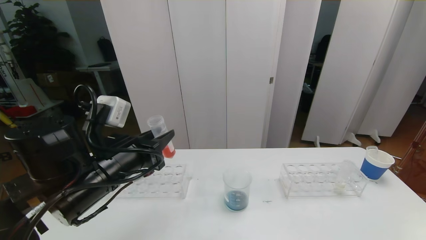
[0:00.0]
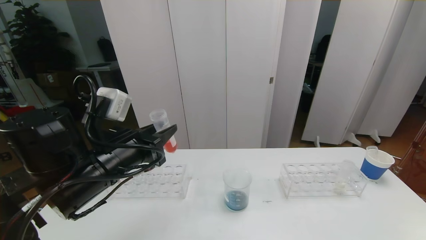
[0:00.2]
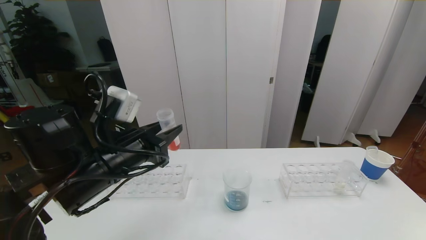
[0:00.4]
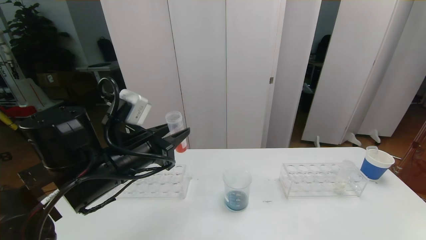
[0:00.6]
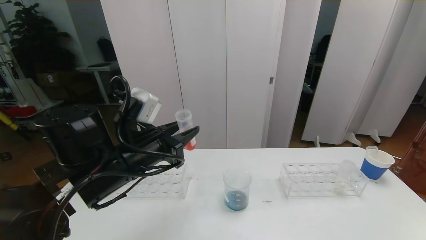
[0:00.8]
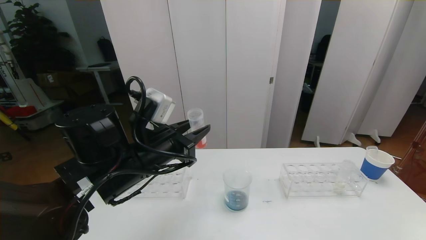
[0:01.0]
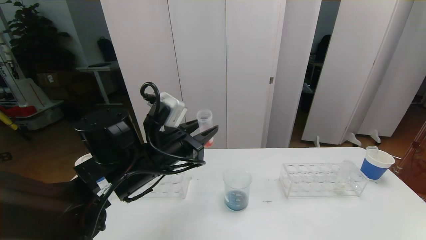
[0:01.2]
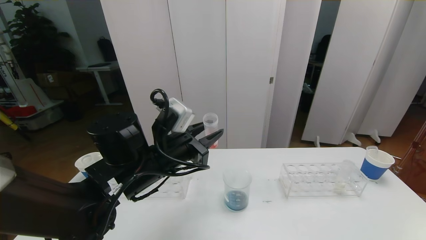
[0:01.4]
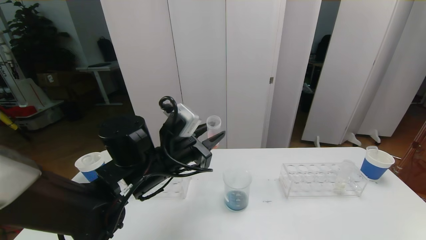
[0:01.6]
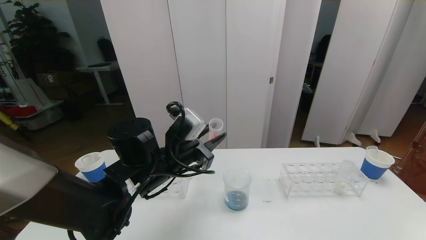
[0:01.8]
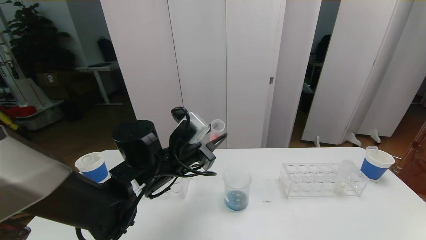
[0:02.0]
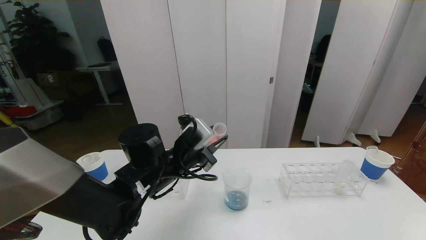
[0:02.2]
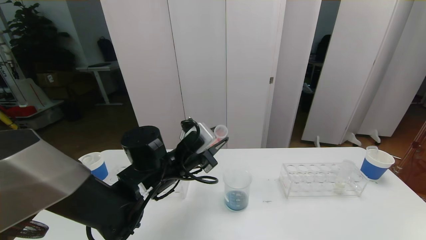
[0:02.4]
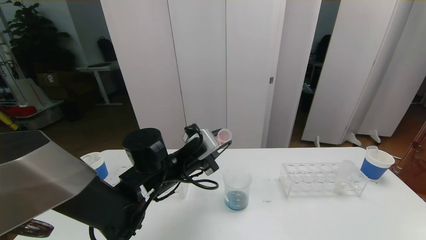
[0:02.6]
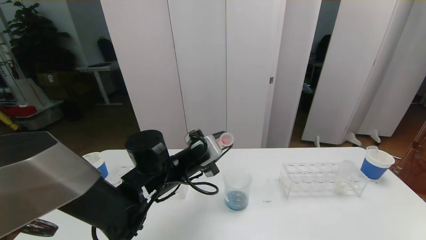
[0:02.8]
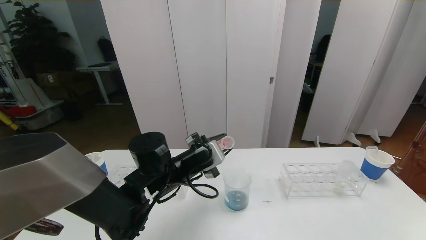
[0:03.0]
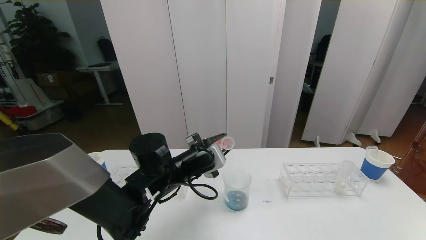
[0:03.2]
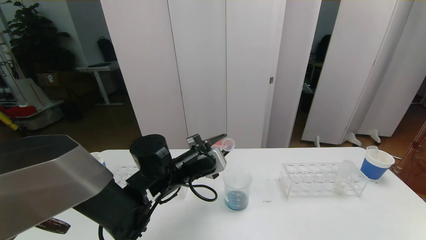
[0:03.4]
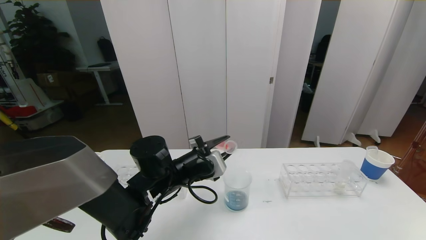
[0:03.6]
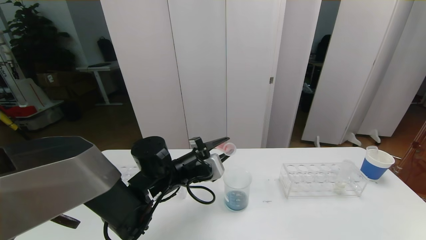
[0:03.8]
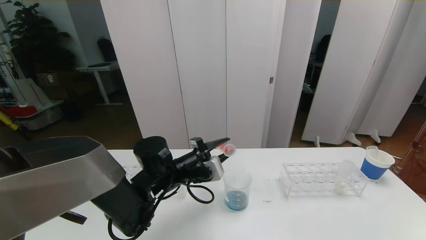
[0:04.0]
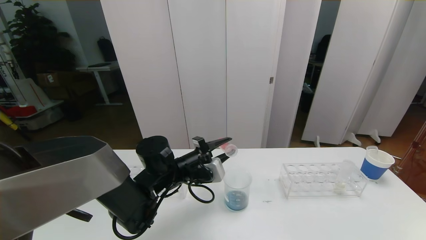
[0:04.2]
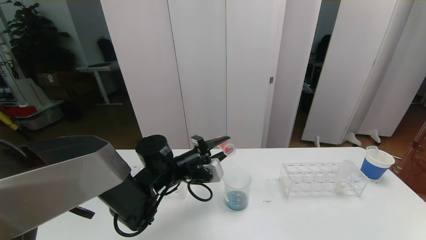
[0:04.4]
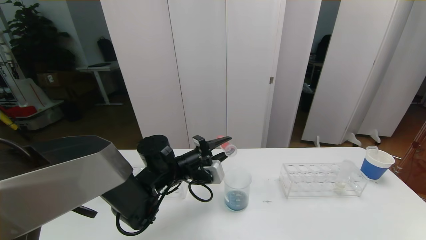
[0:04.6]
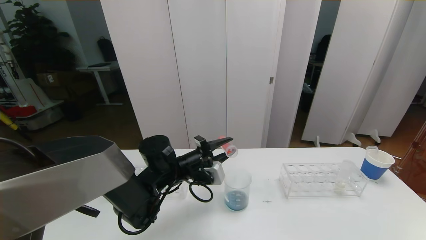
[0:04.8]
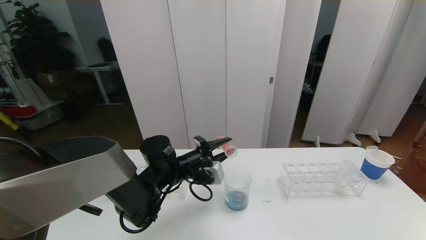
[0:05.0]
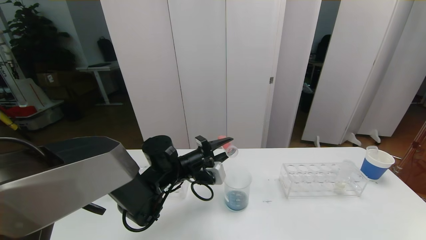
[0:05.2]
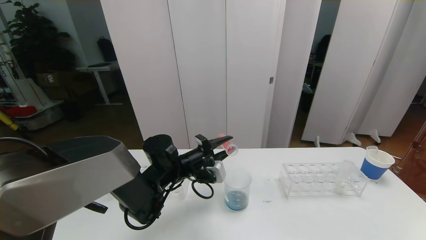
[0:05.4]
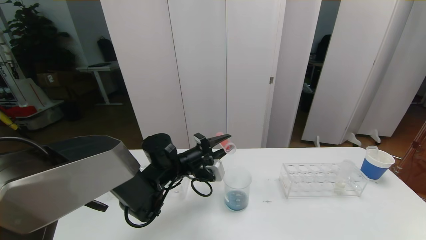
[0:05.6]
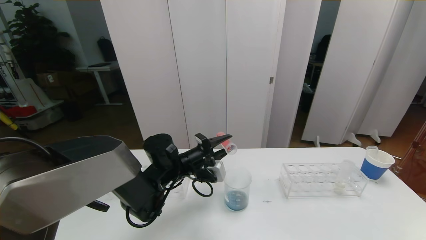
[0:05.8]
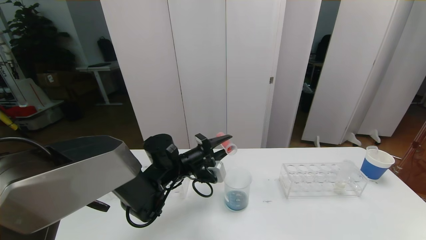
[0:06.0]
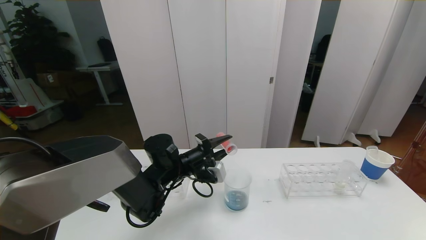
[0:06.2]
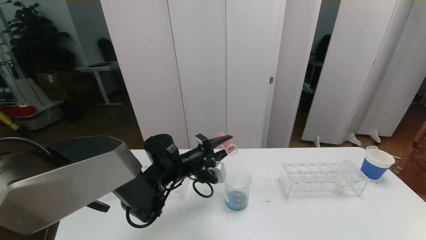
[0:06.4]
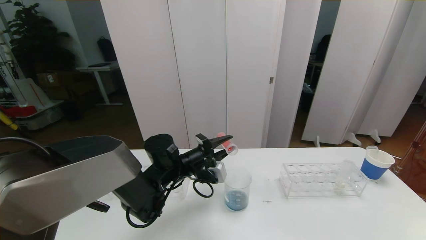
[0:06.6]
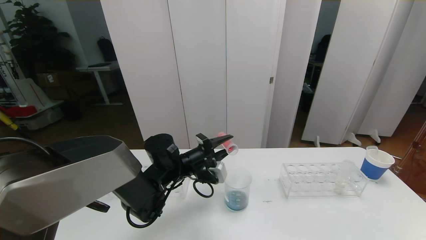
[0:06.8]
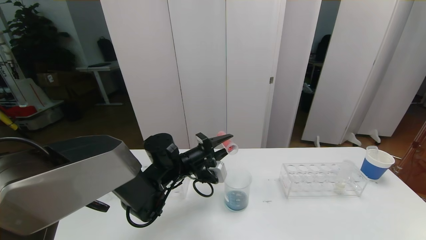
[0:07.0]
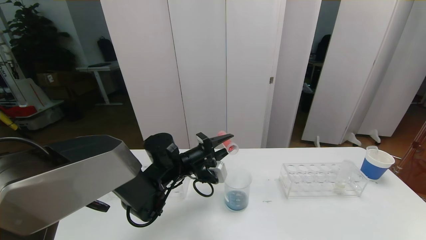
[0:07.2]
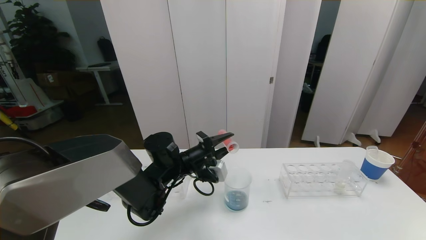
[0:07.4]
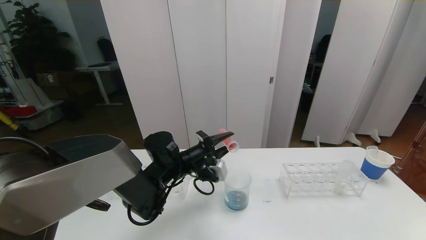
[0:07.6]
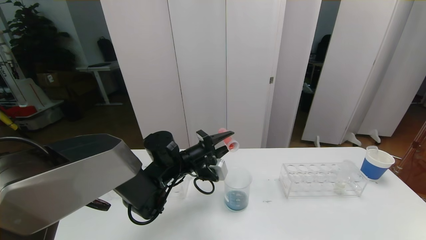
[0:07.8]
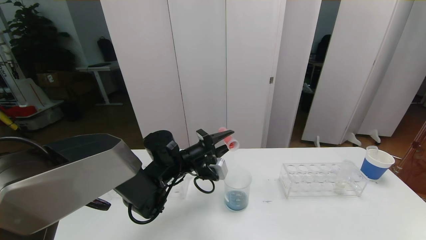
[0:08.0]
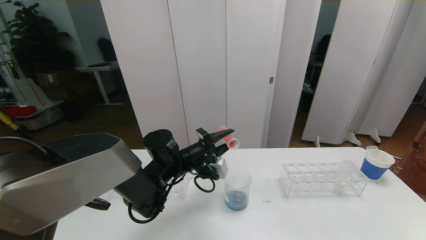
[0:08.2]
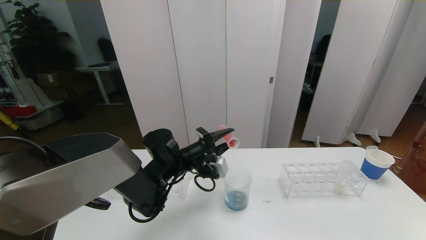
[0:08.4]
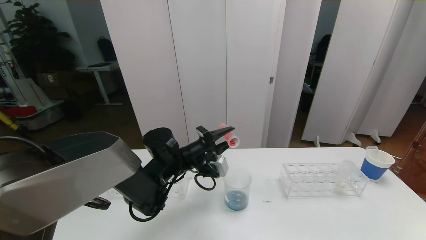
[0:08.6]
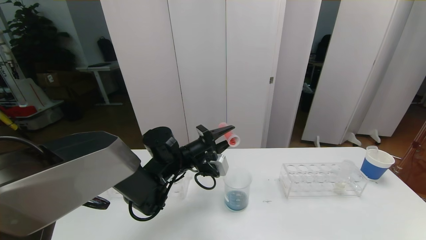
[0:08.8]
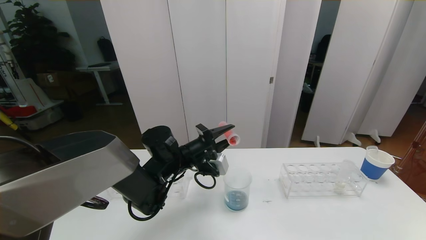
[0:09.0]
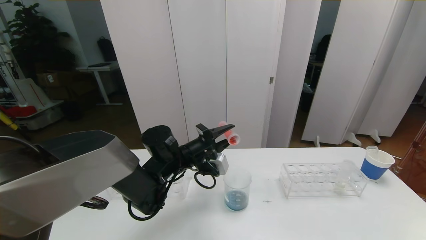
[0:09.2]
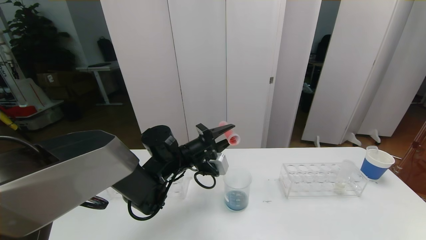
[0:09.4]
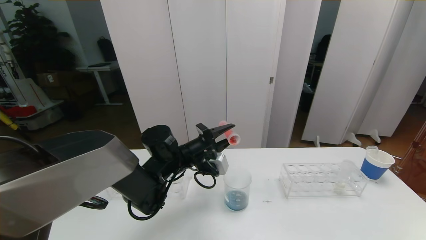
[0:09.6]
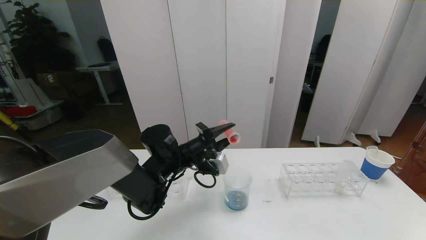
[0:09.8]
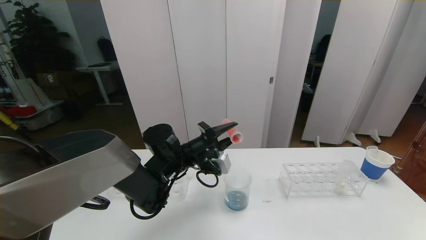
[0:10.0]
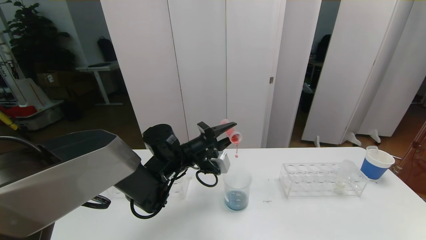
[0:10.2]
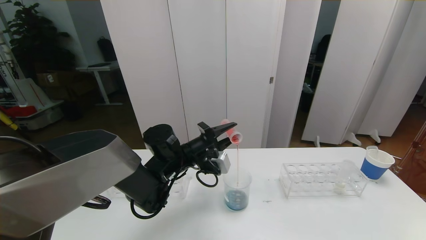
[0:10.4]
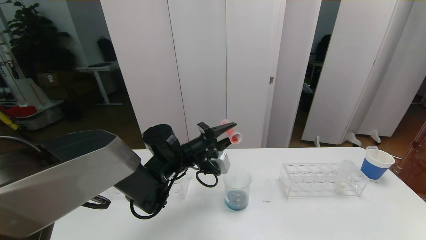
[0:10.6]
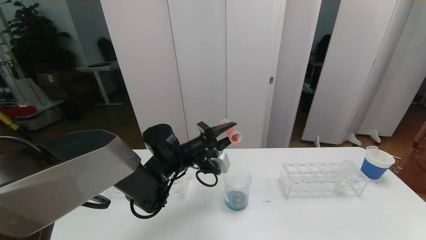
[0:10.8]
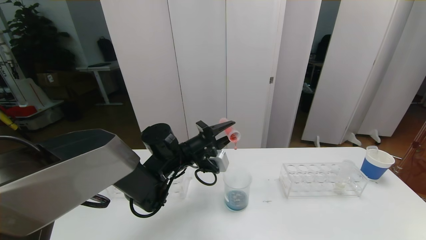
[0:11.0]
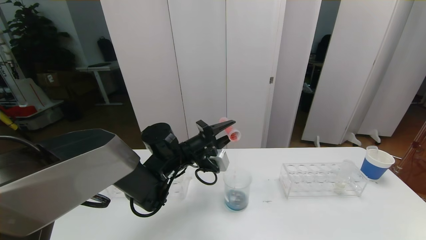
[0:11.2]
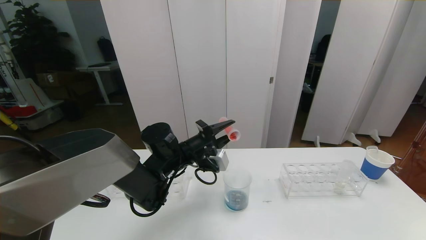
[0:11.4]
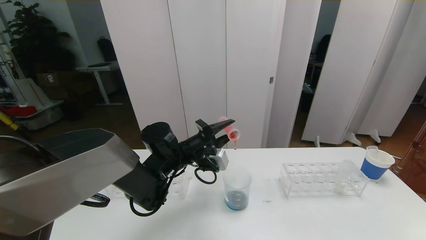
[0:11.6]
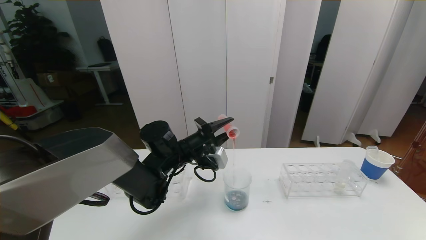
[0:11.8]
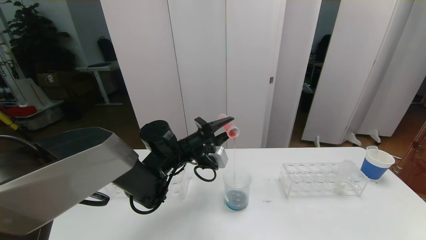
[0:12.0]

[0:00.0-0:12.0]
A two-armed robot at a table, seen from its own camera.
Task of the whole recording: pick up the test tube with red pigment the test tube with blue pigment and the test tube with white pigment by grippers and pour them into the beaker.
0:00.0 to 0:01.6: The left gripper heads to the right and forward, covering some 10 cm.
0:01.6 to 0:03.0: The left gripper shifts by roughly 5 cm.
0:04.4 to 0:06.0: The grippers stay close to where they were, moving slightly.
0:06.0 to 0:07.6: Both grippers stay about where they are.
0:07.6 to 0:09.0: The grippers make only small movements.
0:09.0 to 0:12.0: Both grippers stay put.

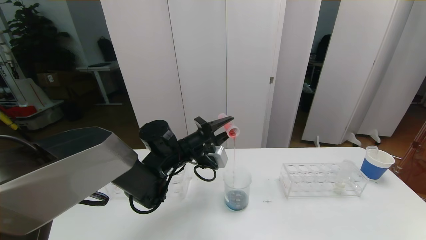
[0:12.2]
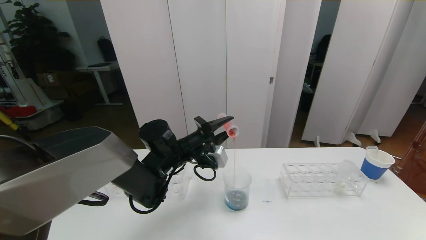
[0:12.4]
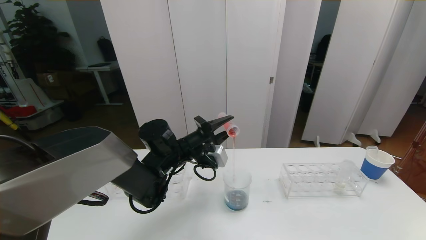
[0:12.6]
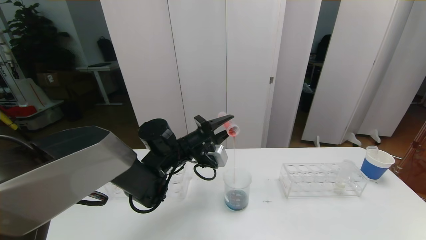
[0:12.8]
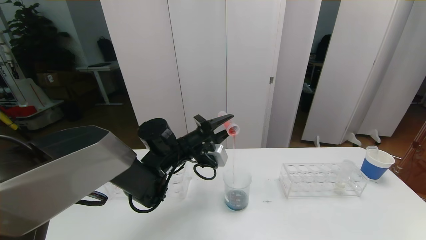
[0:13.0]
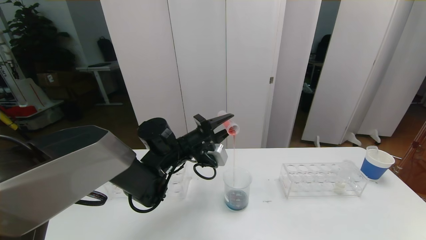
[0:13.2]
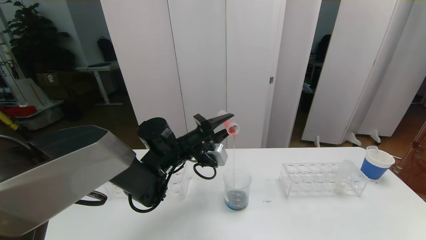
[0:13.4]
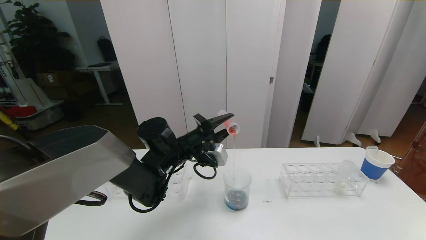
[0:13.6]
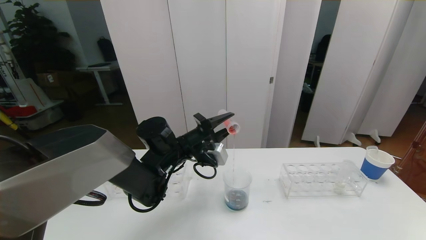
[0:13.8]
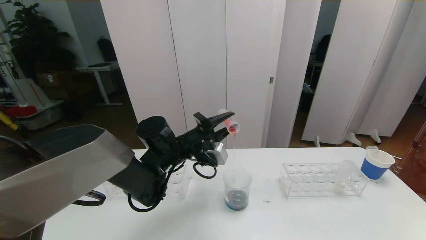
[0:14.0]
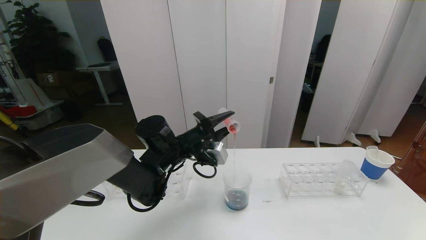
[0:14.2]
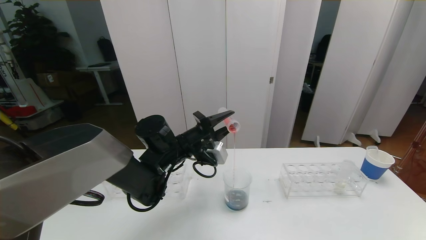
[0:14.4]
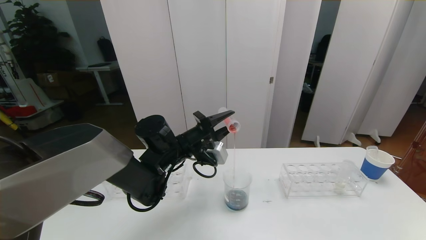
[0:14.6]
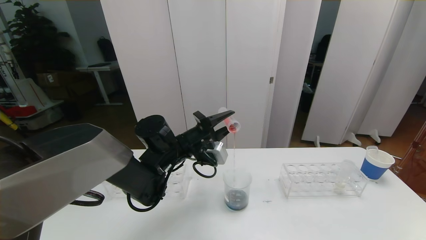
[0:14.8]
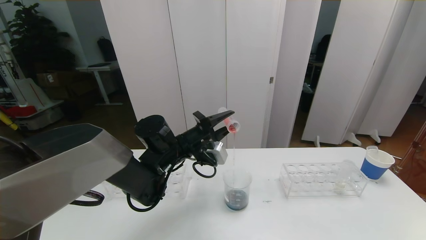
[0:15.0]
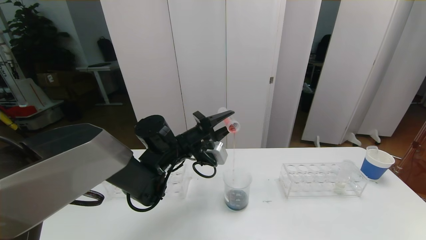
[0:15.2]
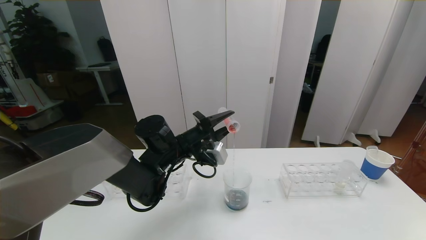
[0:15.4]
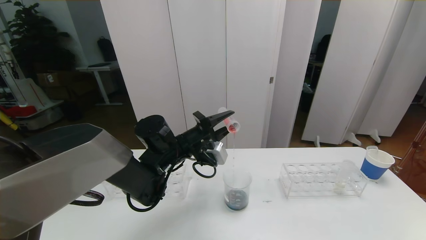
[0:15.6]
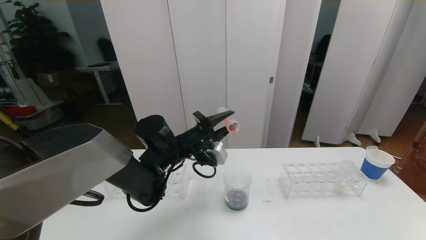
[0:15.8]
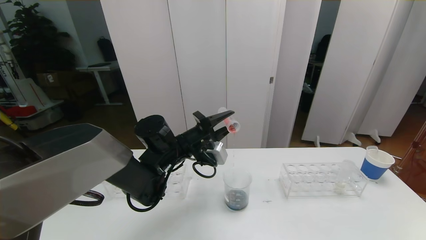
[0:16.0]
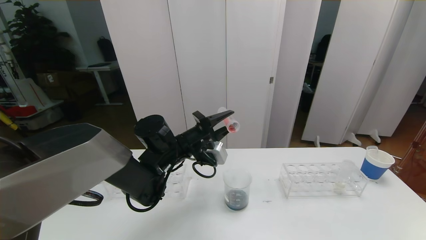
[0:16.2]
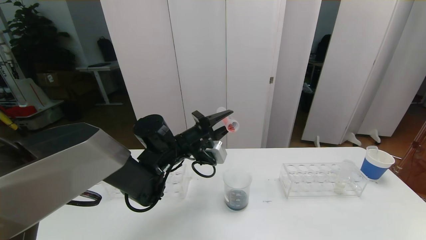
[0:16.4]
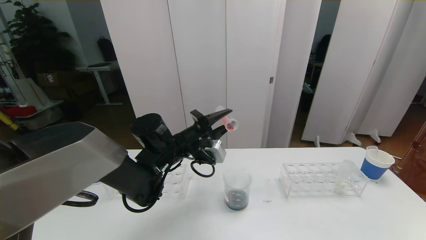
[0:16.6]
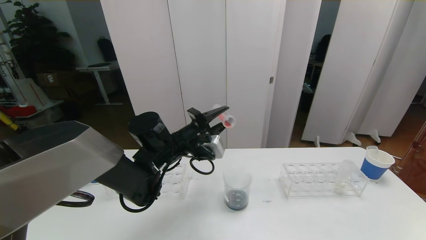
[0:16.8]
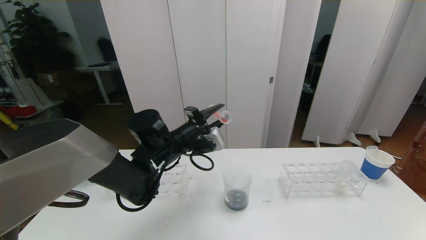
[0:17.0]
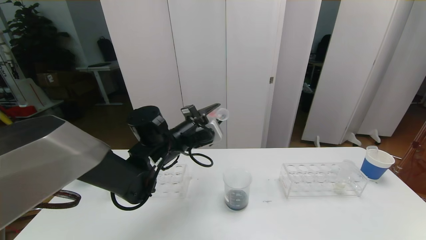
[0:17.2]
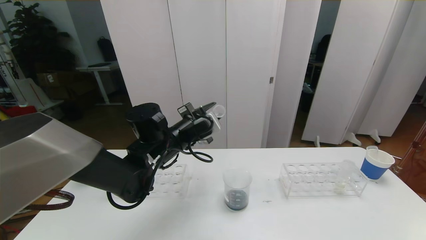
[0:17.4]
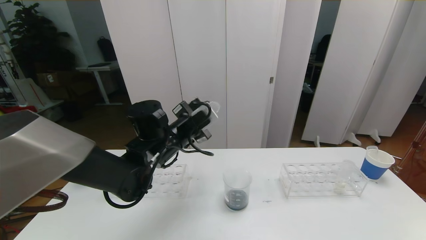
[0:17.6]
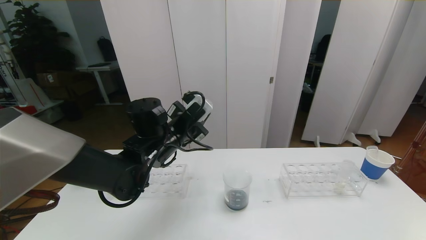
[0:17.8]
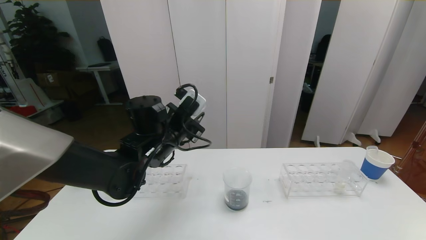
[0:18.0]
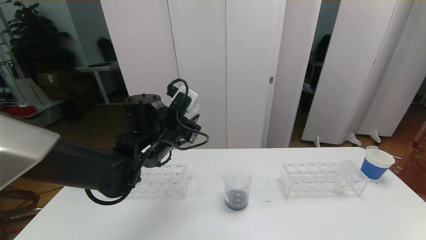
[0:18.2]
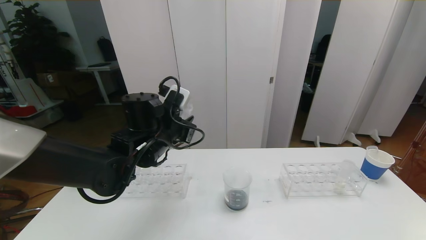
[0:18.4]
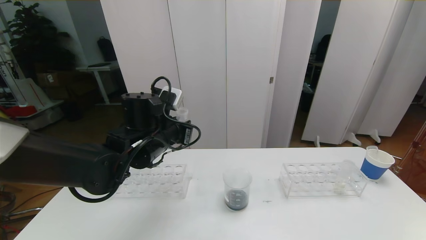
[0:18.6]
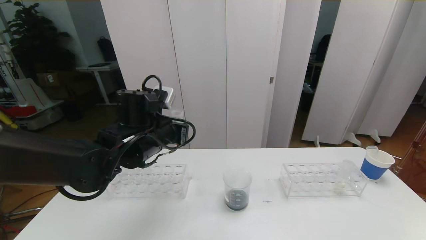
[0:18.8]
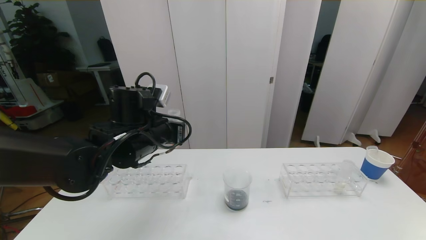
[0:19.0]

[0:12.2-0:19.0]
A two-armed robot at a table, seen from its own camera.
Task of the whole recording: pick up the test tube with red pigment the test tube with blue pigment and the test tube with white pigment by grippers and pour them into the beaker.
0:12.2 to 0:13.6: The two grippers keep their place.
0:13.6 to 0:16.2: The two grippers keep their place.
0:17.6 to 0:19.0: The left gripper ends up about 5 cm from where it was.
